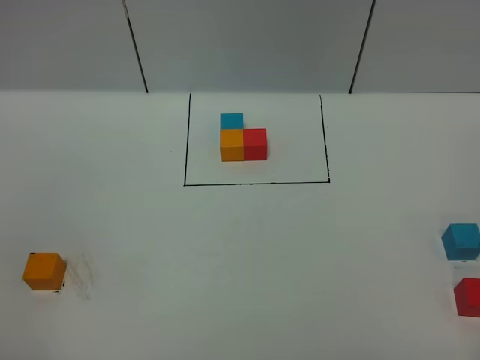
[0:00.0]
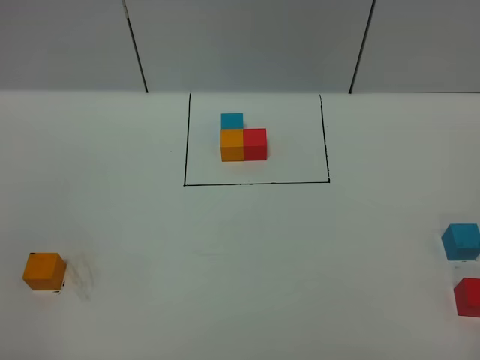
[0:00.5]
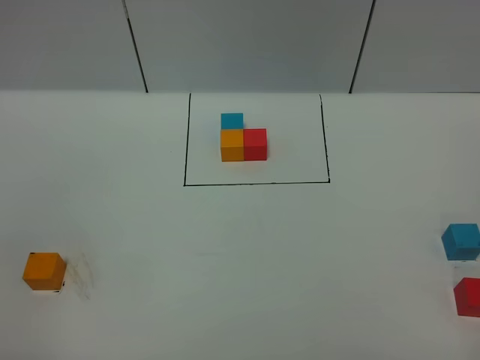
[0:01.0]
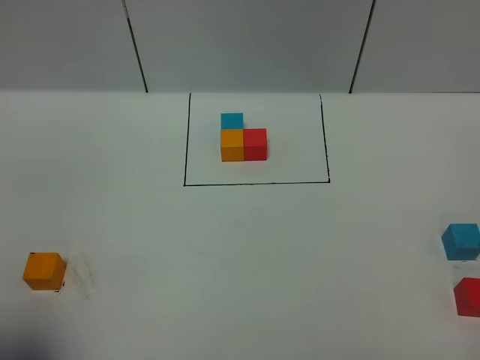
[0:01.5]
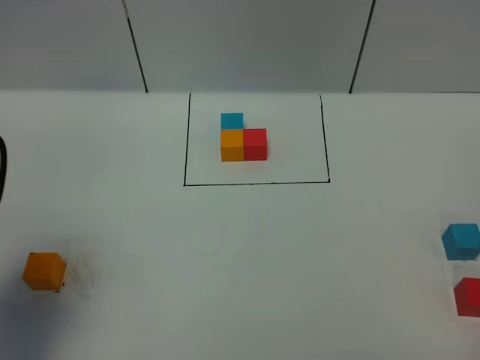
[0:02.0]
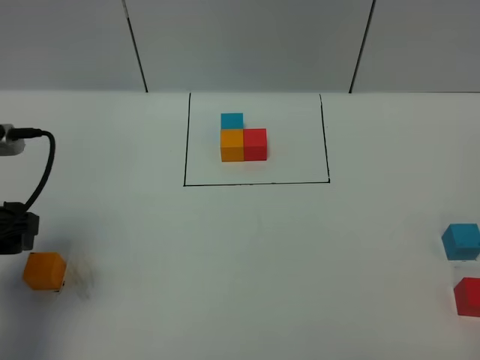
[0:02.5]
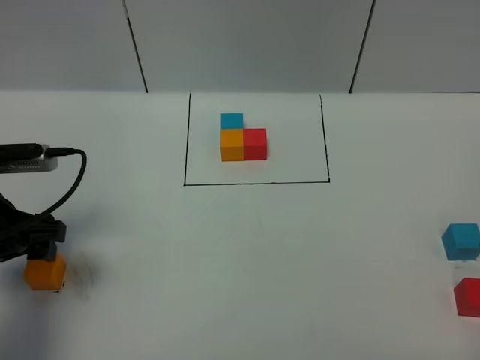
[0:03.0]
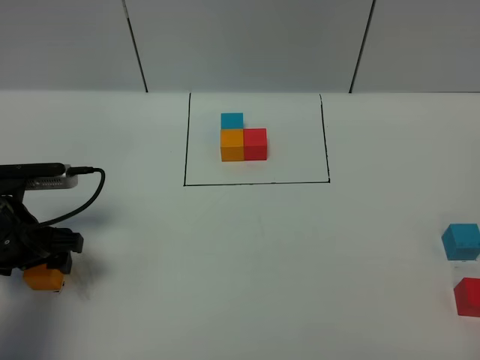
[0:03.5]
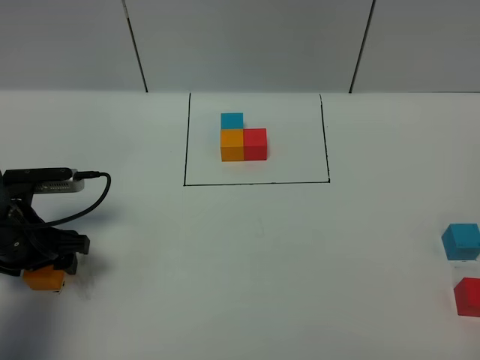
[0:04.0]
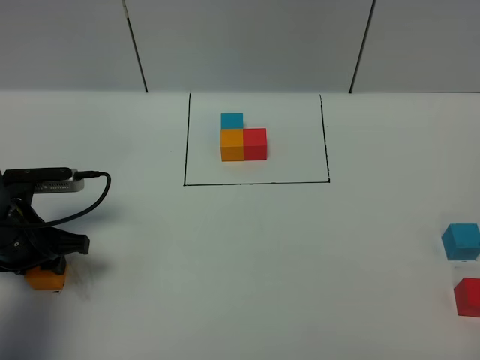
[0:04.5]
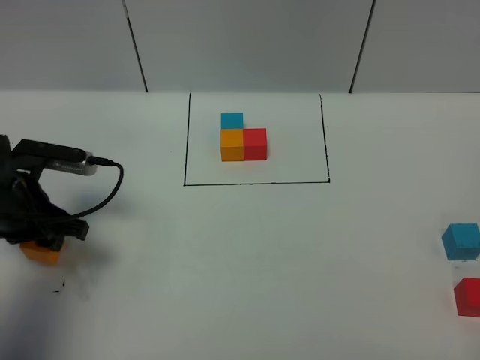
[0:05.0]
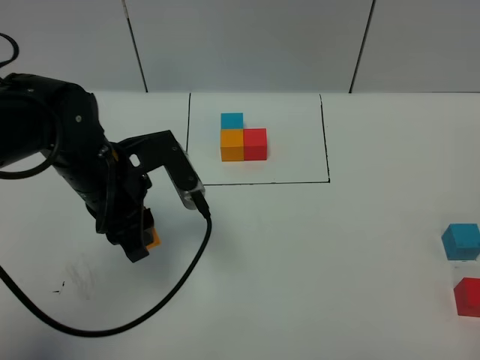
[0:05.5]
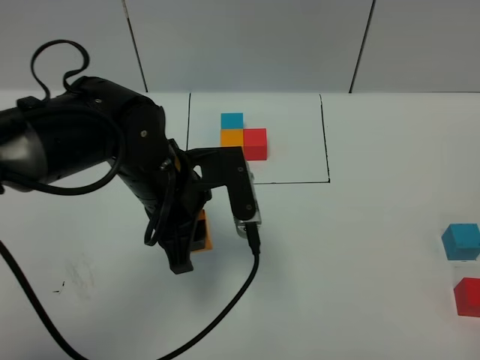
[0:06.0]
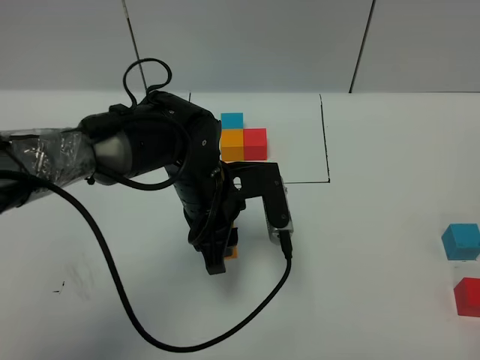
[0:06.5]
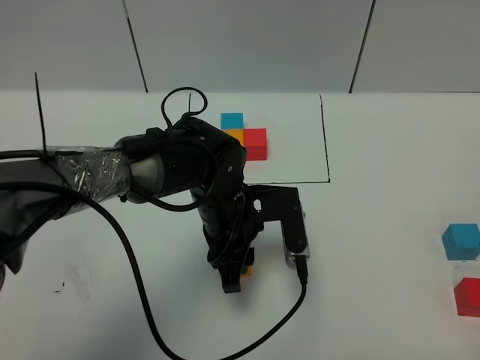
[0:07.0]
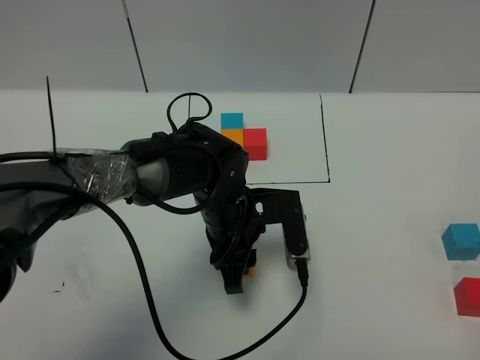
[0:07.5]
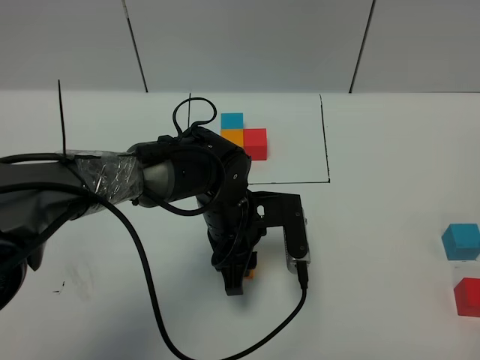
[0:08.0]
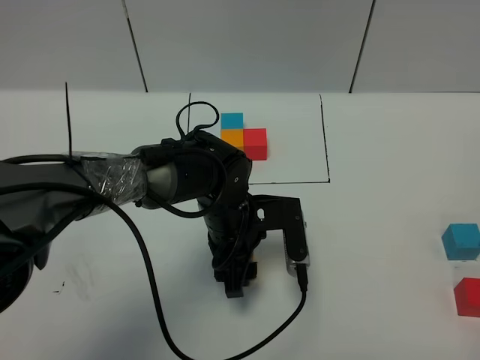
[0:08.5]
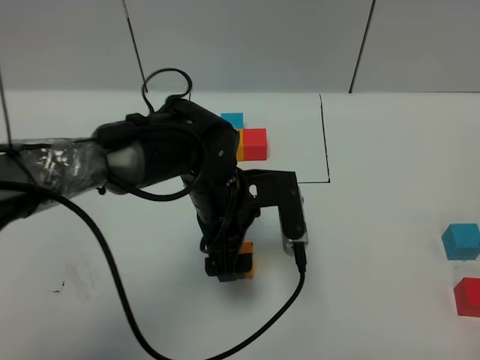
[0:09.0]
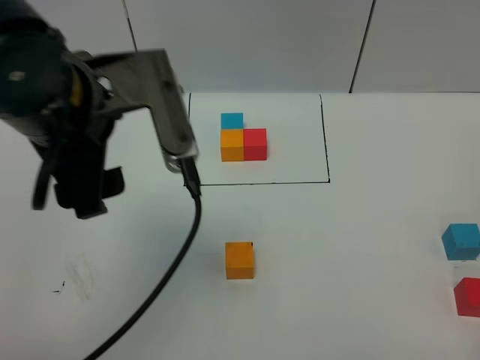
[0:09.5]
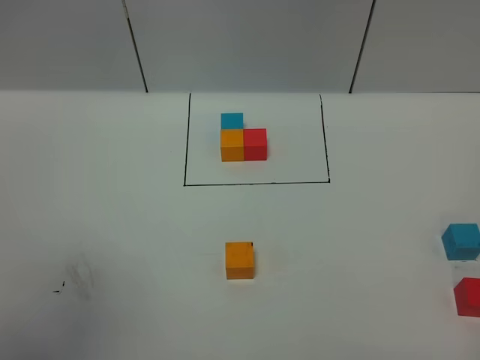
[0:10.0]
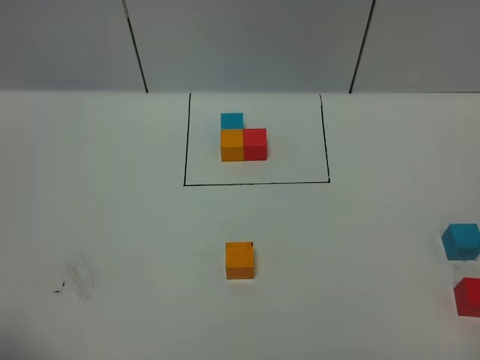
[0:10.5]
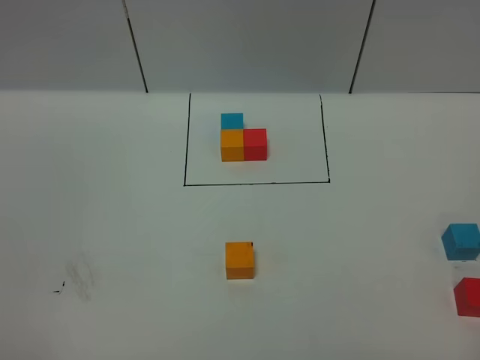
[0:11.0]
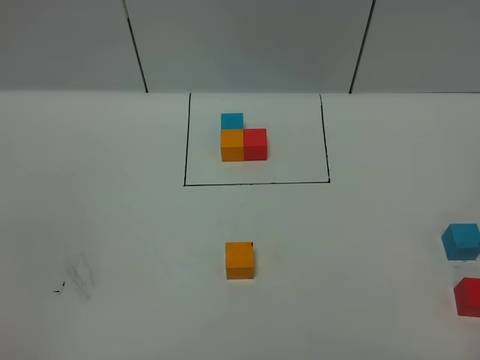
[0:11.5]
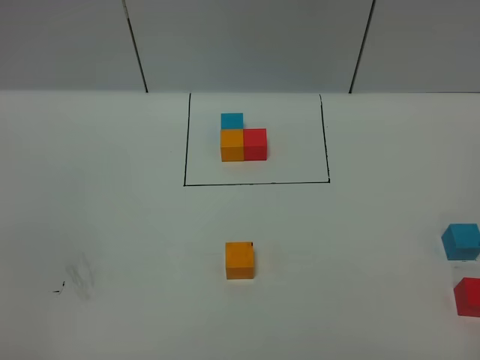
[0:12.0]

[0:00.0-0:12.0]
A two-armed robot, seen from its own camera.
Task of the whole recording: According to the building block template in front, assemble the scattered blocks together.
Step, 0:02.0 to 0:09.0: Put the orange cube in the center of the table.
0:00.0 to 0:02.0: The left gripper travels forward by approximately 20 cm.
0:02.0 to 0:04.0: The left gripper heads downward and forward, covering about 20 cm.
0:04.0 to 0:06.0: The left gripper moves to the right and upward, some 20 cm, and closes up.
0:06.0 to 0:08.0: The left gripper shifts about 10 cm downward and to the right.
0:08.0 to 0:10.0: The left gripper travels upward, to the left and backward by some 50 cm, and opens.
0:10.0 to 0:12.0: The left gripper shifts roughly 25 cm downward and backward.

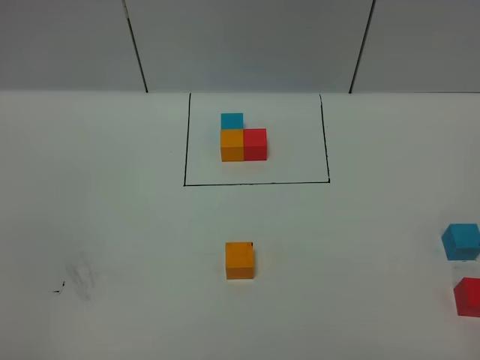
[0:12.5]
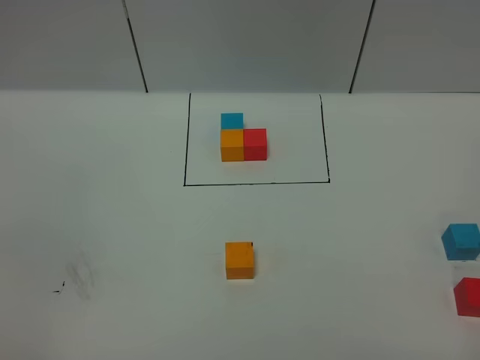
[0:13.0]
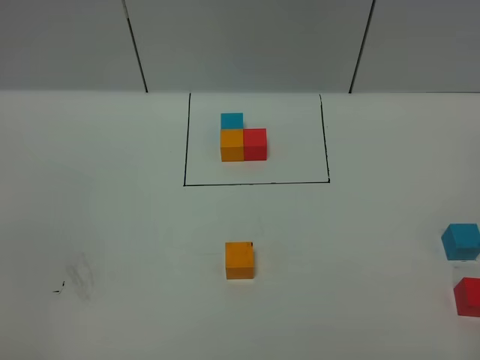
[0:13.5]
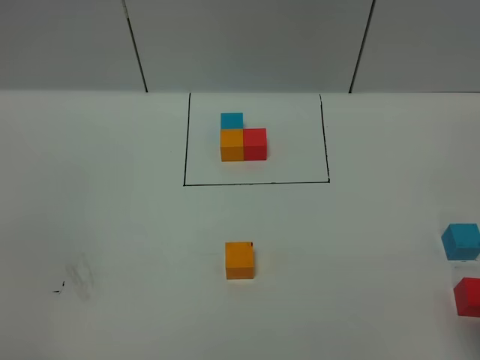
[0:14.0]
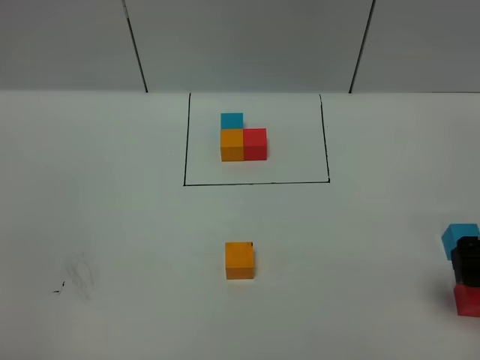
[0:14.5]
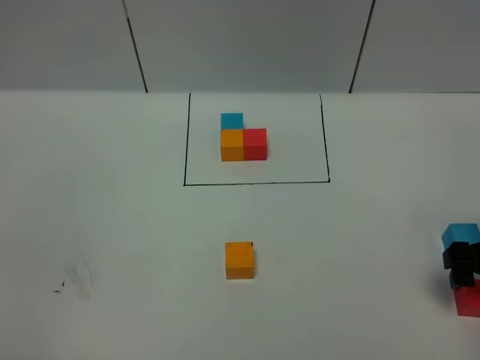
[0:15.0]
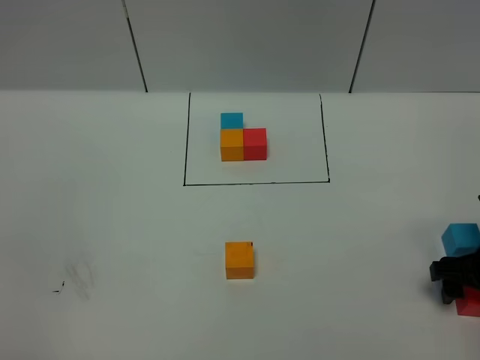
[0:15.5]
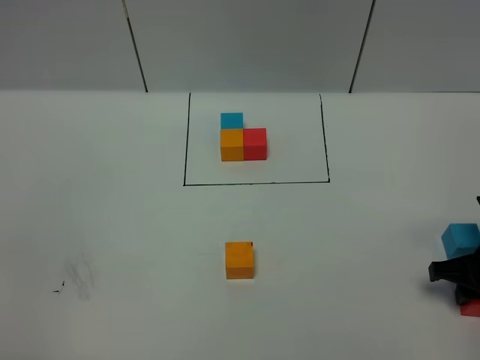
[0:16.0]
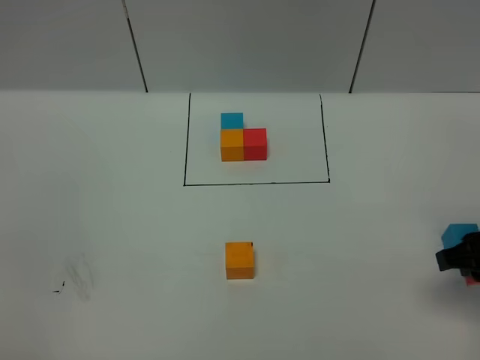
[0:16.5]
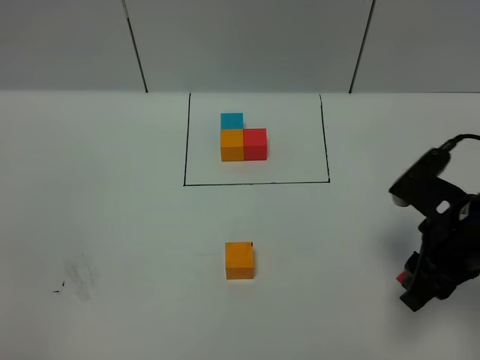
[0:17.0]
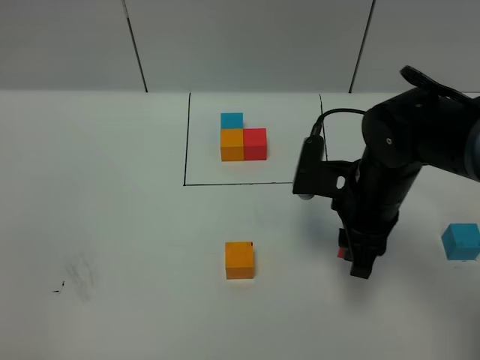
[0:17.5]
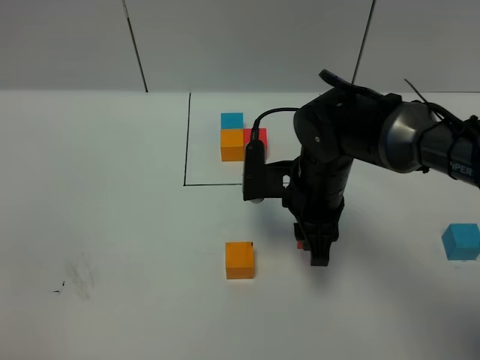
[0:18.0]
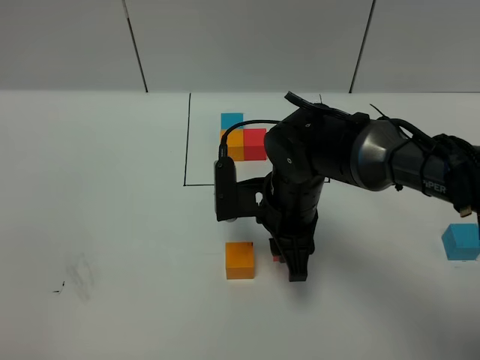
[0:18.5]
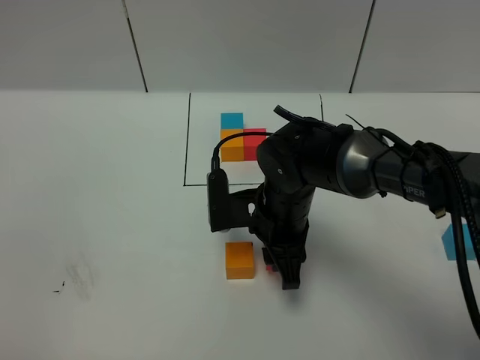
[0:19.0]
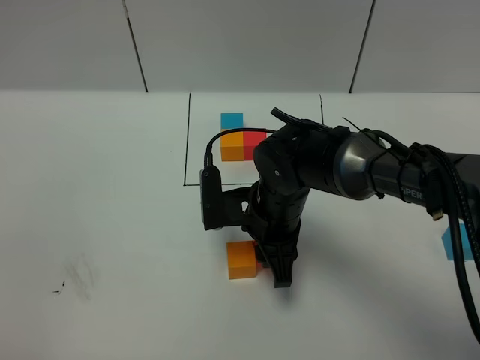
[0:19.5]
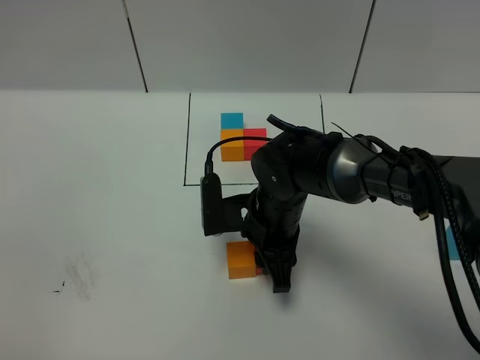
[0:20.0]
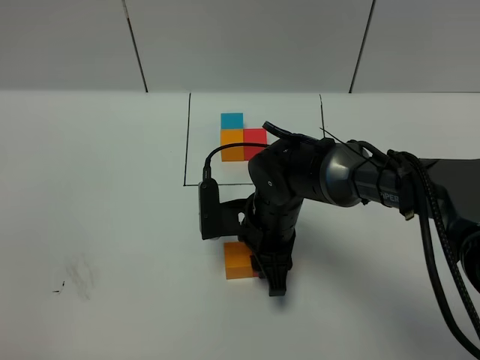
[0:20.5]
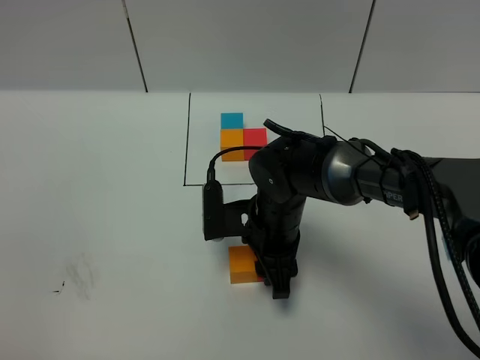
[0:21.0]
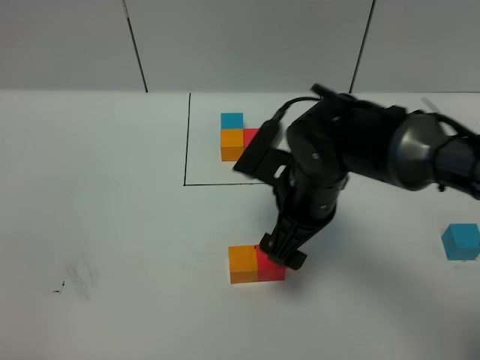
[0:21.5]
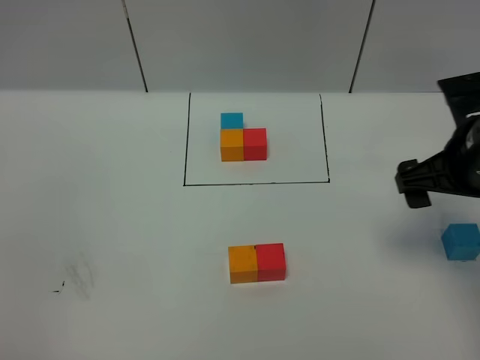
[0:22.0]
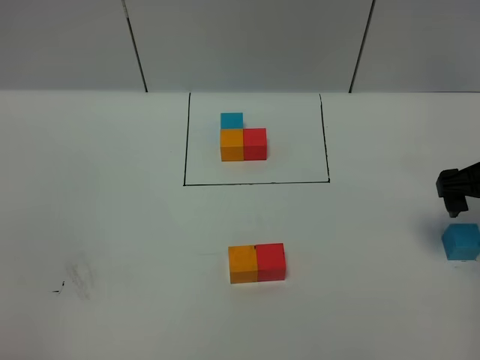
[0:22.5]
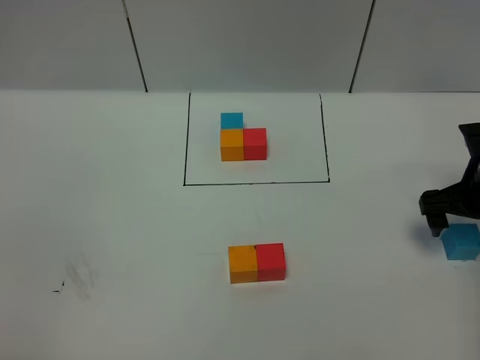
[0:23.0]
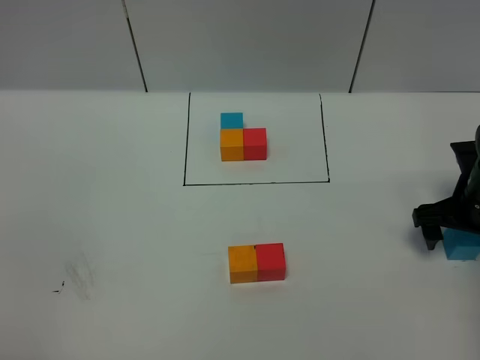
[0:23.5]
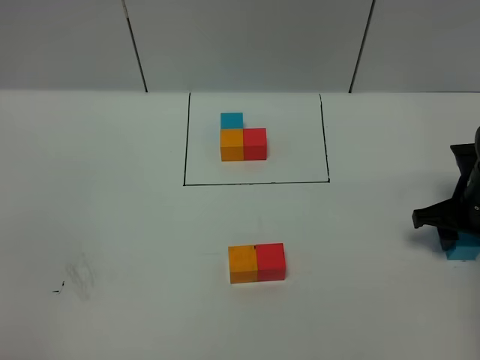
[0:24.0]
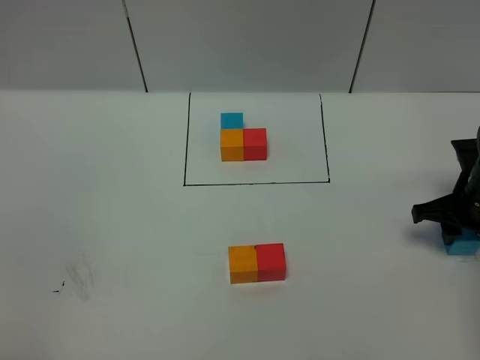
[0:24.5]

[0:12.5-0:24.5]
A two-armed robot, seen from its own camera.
Task of the whole recording: According to the building block template in front, assemble the scattered blocks together.
Step, 0:12.5 to 0:21.0: Put the red cube on the right of the orange cube.
0:12.5 to 0:14.5: The right gripper moves forward, roughly 20 cm, and opens up.
0:14.5 to 0:16.5: The right gripper moves roughly 10 cm downward and comes back, and closes up.
0:16.5 to 0:18.5: The right gripper shifts approximately 25 cm to the left and forward.
0:18.5 to 0:20.5: The right gripper moves about 5 cm.
0:20.5 to 0:22.5: The right gripper is displaced to the right by some 25 cm, and opens up.
0:22.5 to 0:24.5: The right gripper goes roughly 5 cm downward, and closes its fingers.

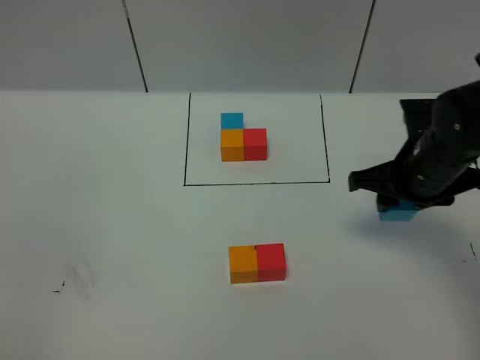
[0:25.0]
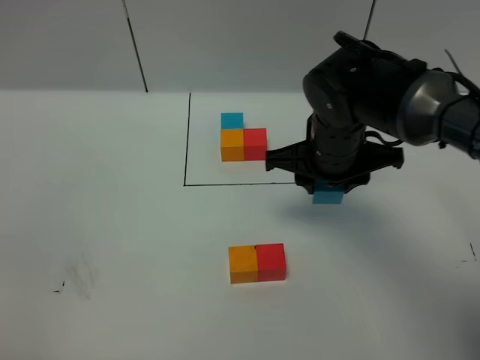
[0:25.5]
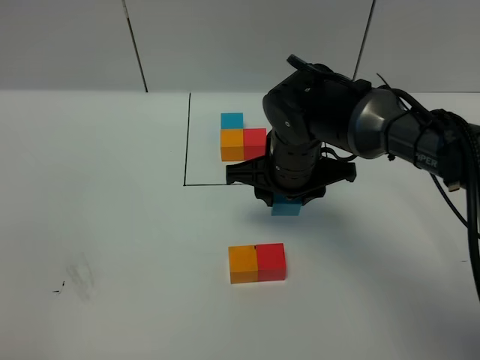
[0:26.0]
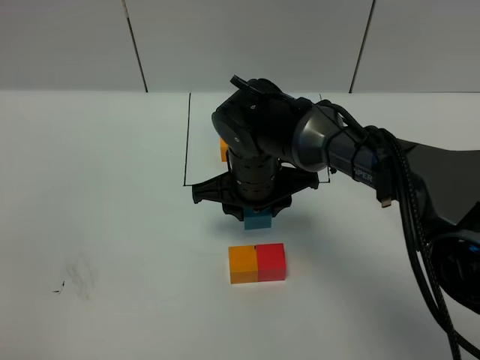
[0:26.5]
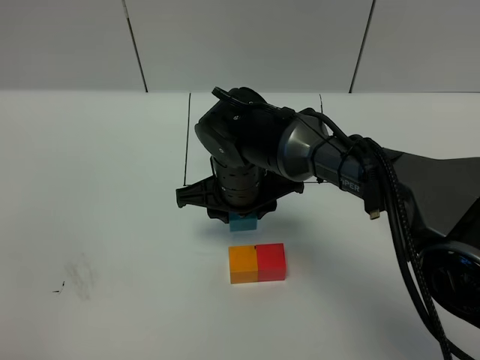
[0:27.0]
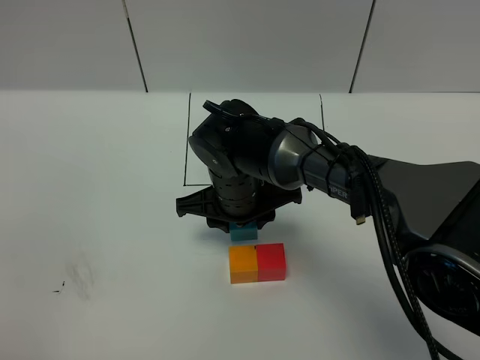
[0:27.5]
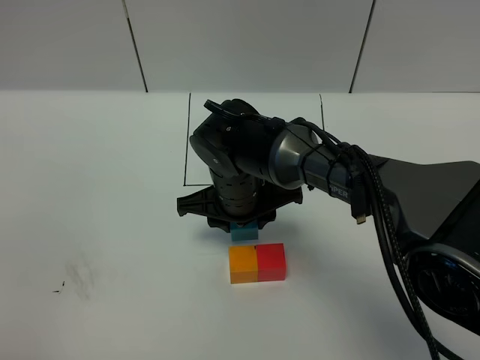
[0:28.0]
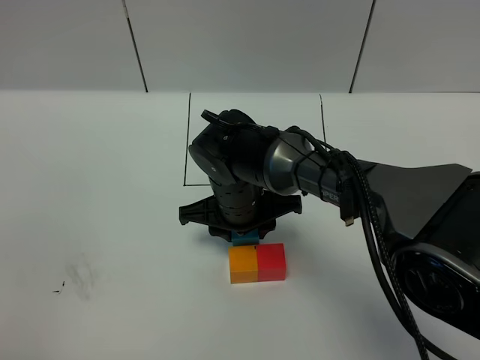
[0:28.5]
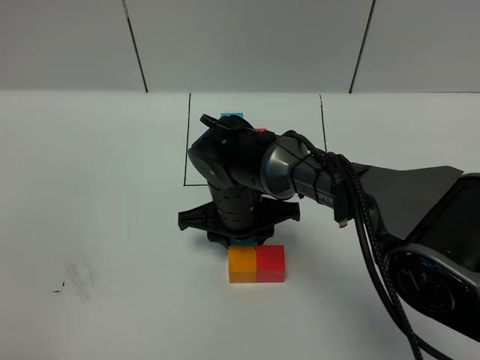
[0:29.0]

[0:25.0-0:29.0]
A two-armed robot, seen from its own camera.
Task of the whole recording: According to the building block template in front, assemble the scattered blocks together.
0:25.0 to 0:27.0: The right gripper moves to the left, some 20 cm.
0:27.0 to 0:29.0: The grippers stay close to where they were, moving slightly.
